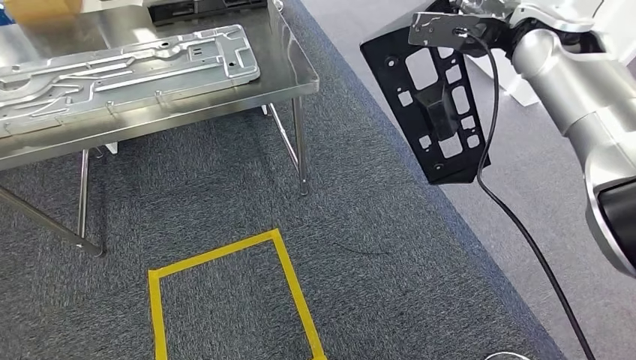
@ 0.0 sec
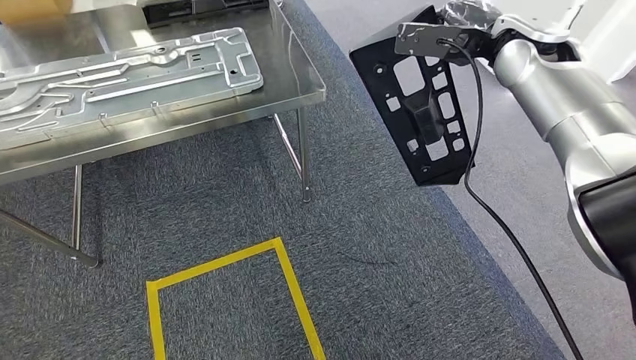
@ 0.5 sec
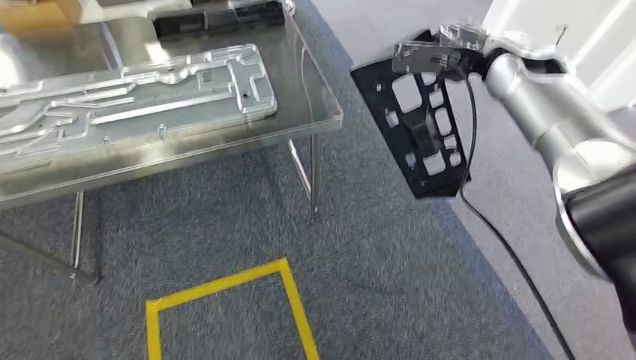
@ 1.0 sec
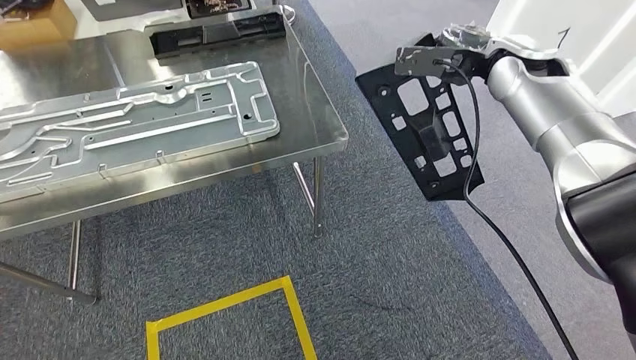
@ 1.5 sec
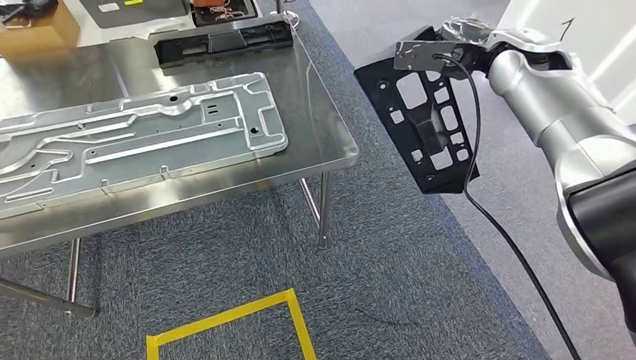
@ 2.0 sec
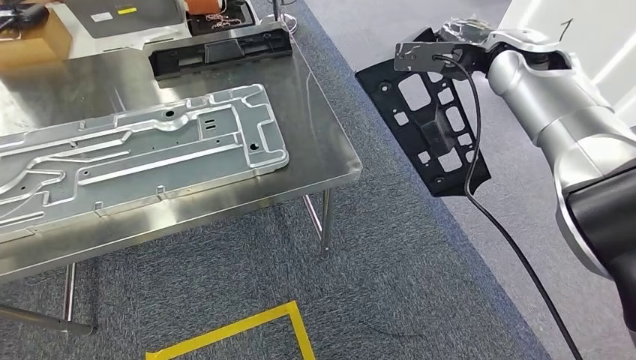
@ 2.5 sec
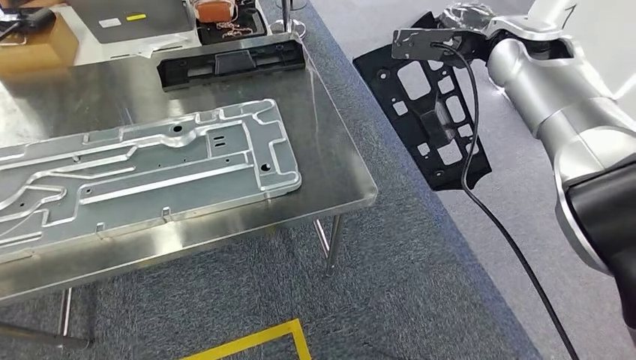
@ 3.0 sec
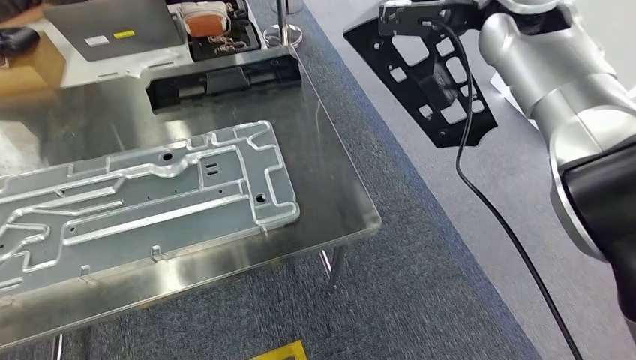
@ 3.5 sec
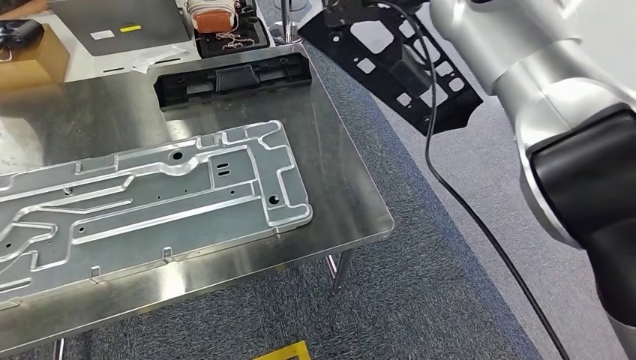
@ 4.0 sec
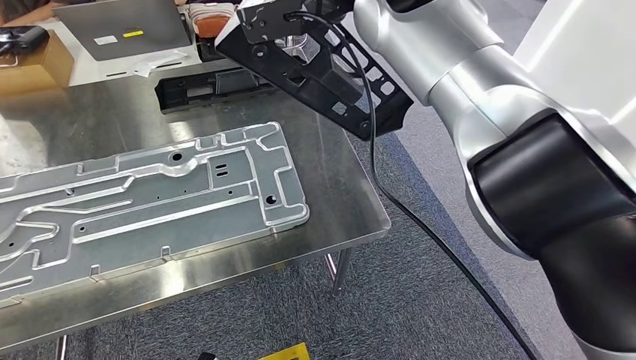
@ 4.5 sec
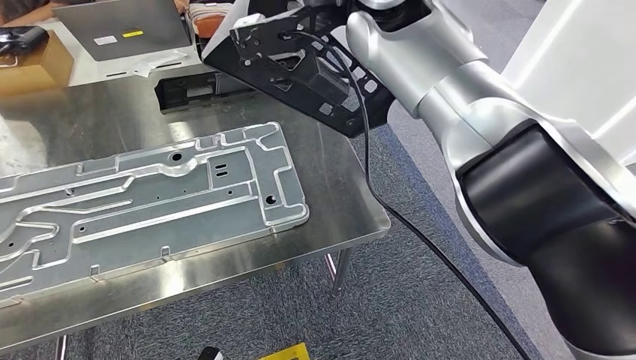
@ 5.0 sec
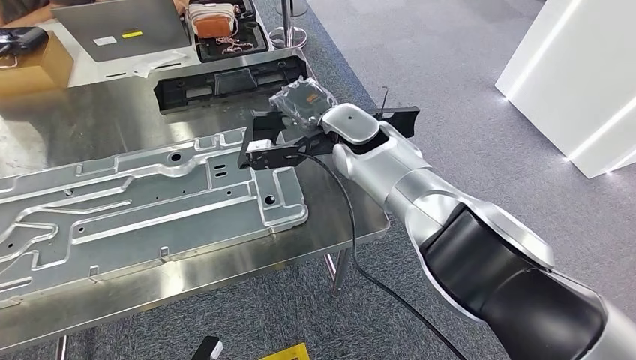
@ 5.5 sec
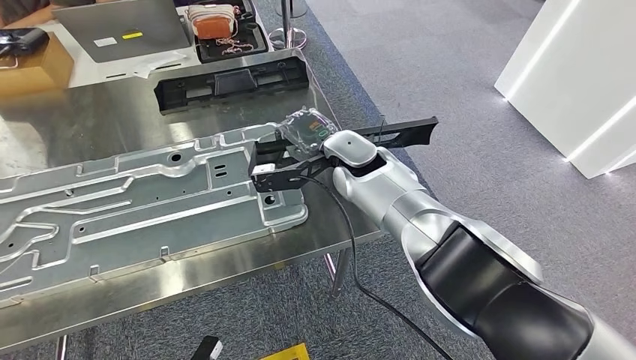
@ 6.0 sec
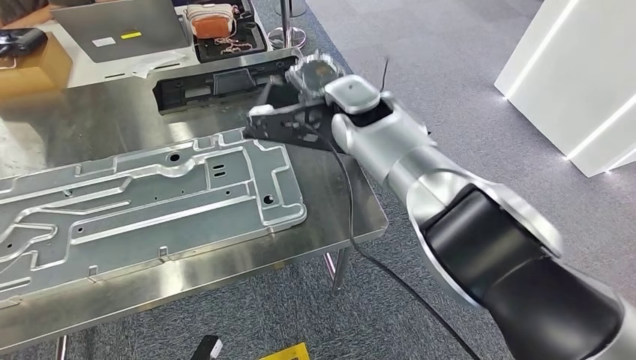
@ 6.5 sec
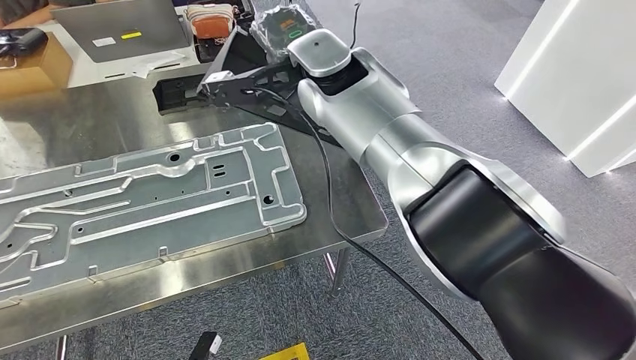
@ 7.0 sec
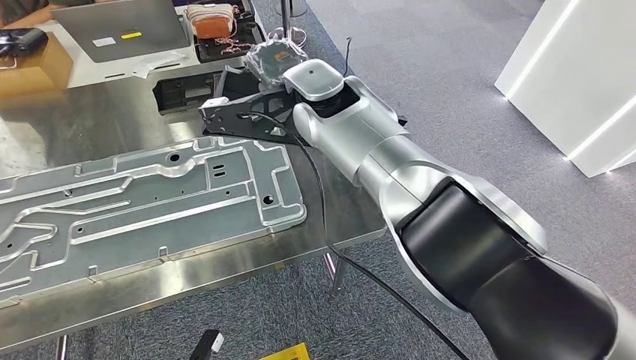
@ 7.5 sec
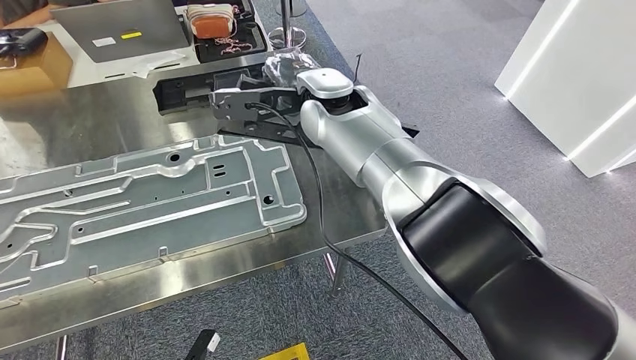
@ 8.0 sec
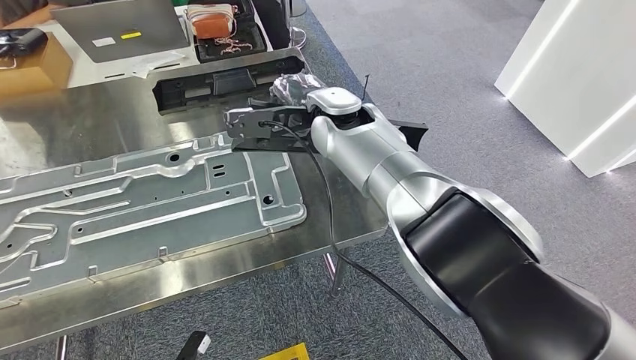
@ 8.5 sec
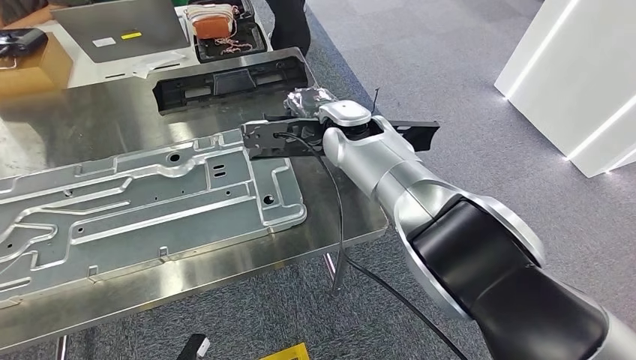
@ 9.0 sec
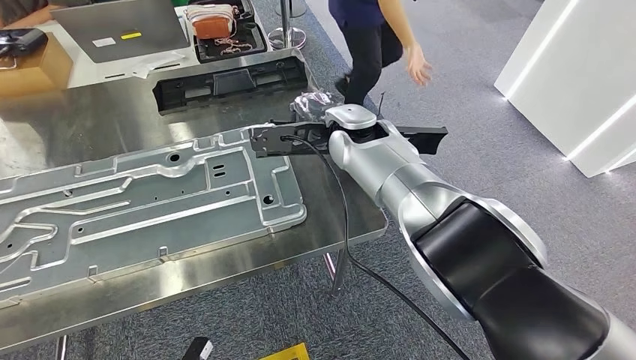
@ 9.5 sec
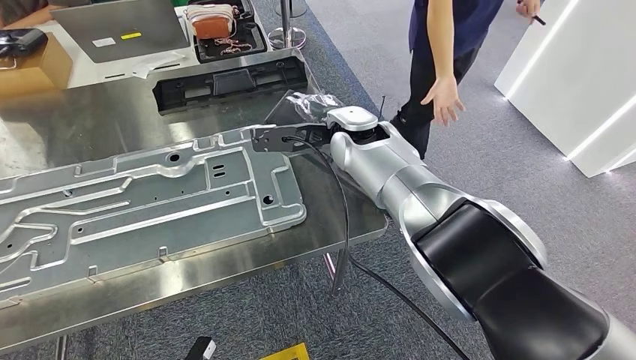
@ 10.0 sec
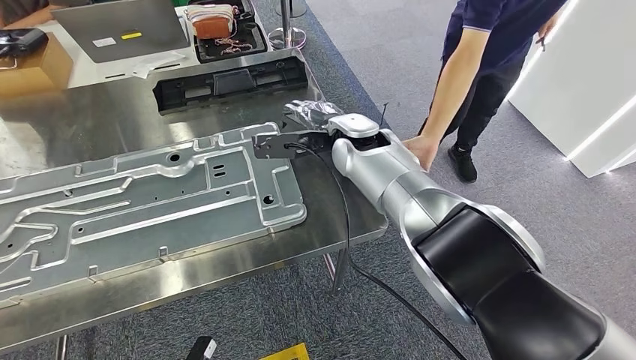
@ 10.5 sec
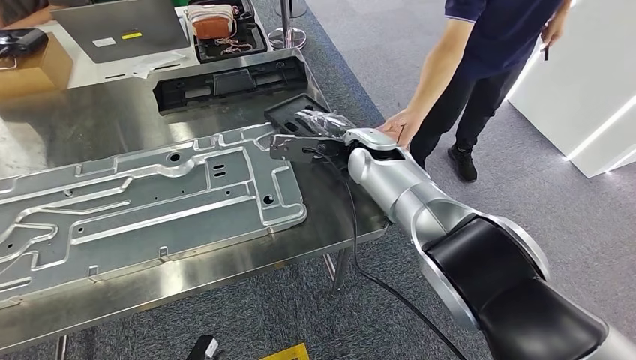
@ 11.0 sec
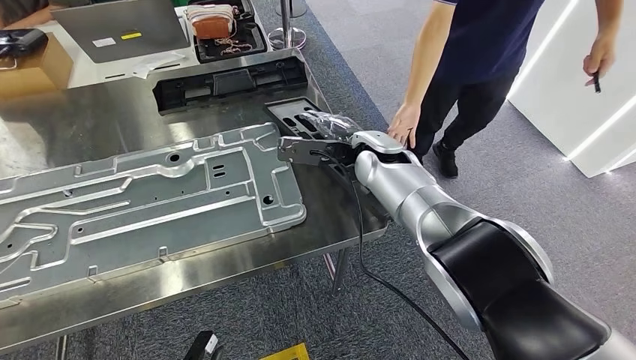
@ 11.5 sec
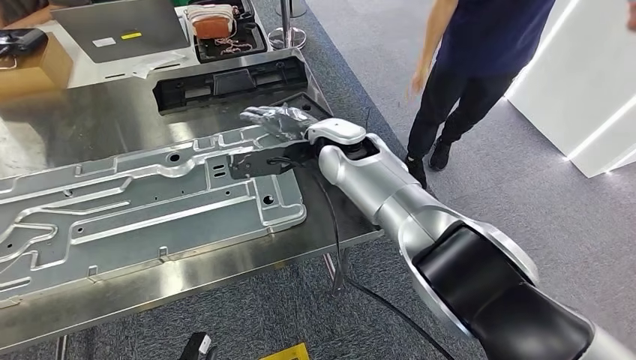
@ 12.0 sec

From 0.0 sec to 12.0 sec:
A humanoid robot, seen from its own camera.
Step, from 0.0 sec to 2.0 sec: Move the large material to the front of the workbench.
From 6.0 sec to 8.0 sec: The right hand shifts some 10 cm upward.
From 8.0 sec to 10.0 sec: The right hand shifts about 5 cm downward.

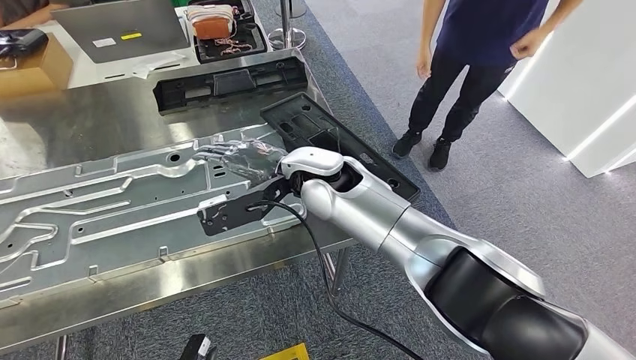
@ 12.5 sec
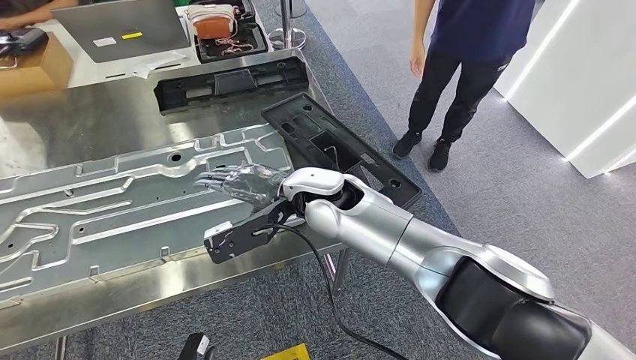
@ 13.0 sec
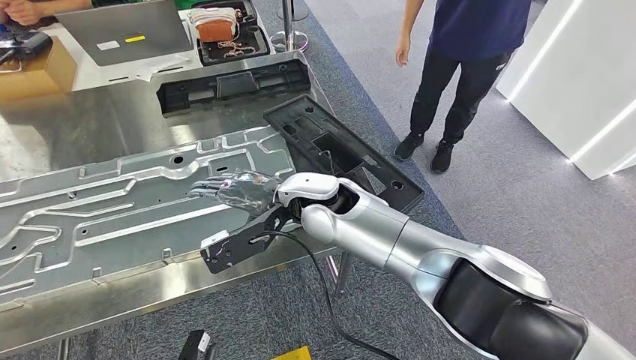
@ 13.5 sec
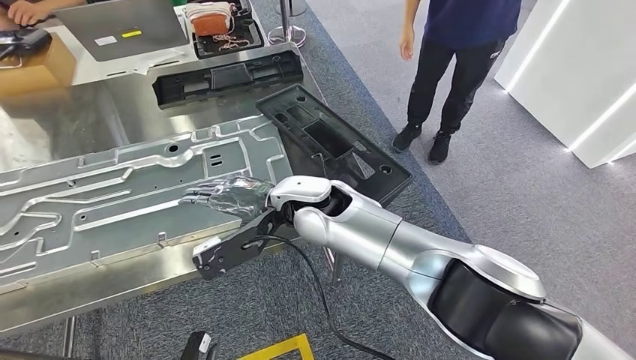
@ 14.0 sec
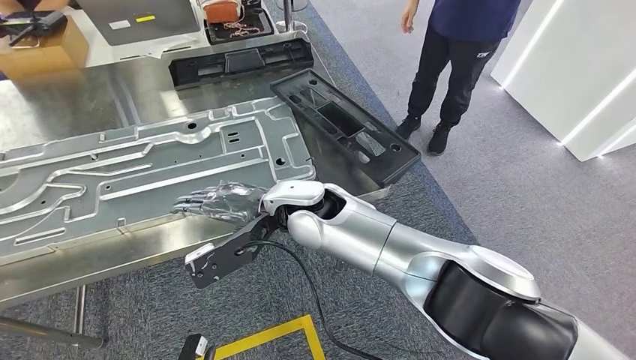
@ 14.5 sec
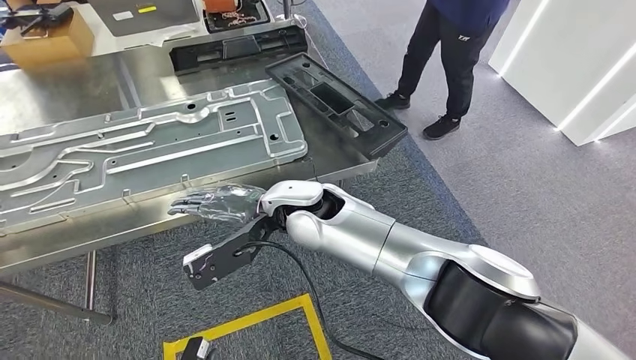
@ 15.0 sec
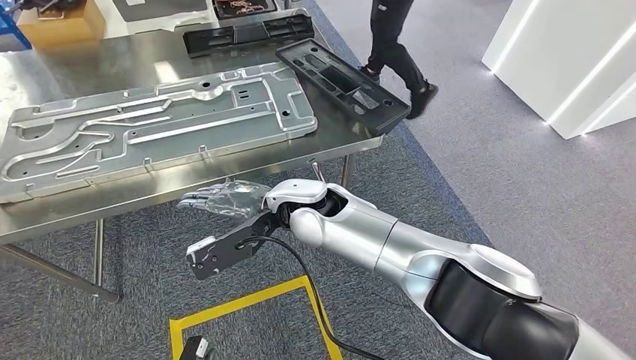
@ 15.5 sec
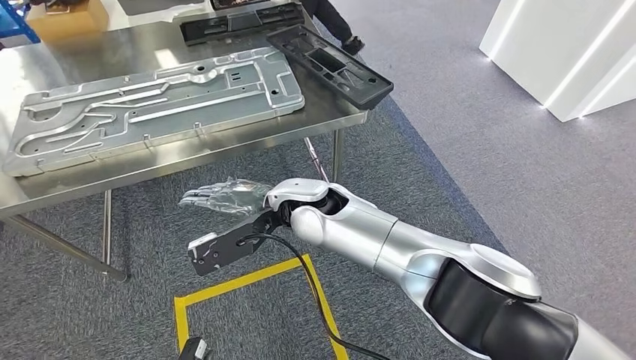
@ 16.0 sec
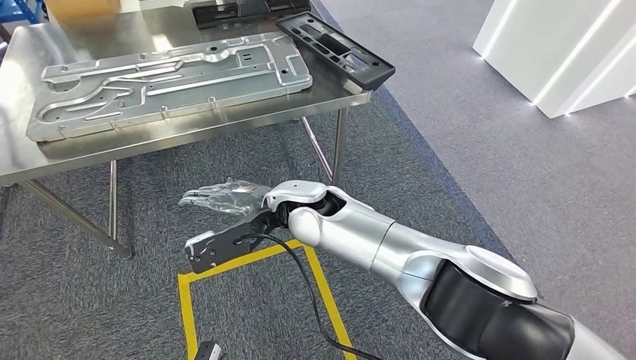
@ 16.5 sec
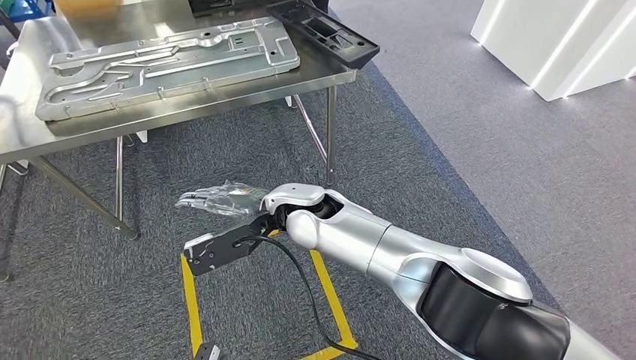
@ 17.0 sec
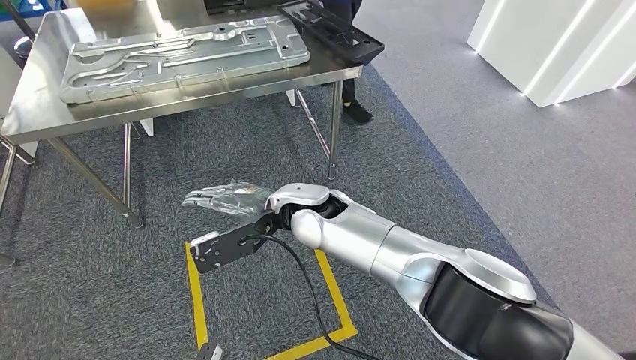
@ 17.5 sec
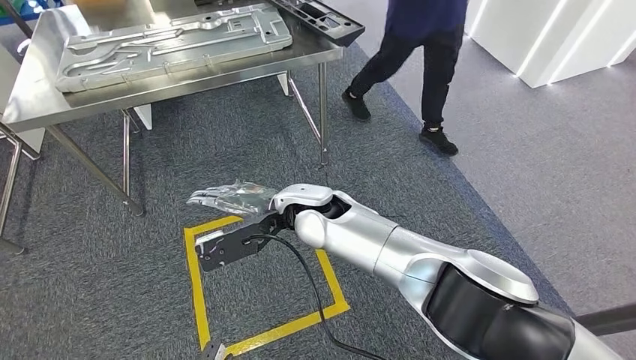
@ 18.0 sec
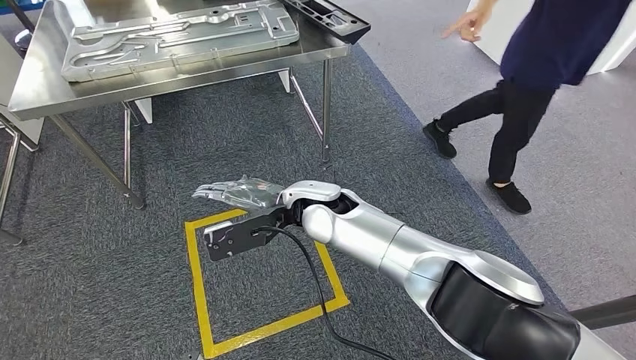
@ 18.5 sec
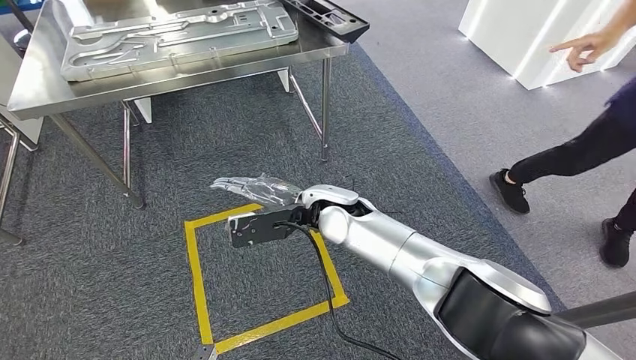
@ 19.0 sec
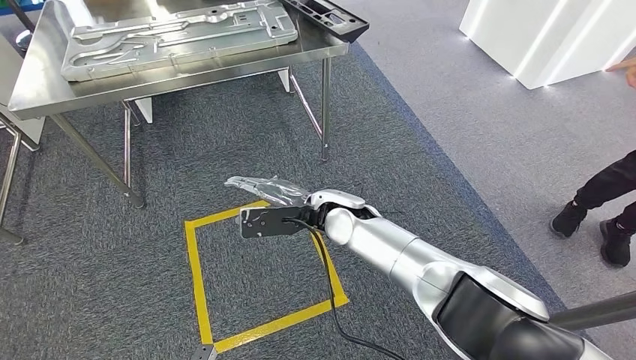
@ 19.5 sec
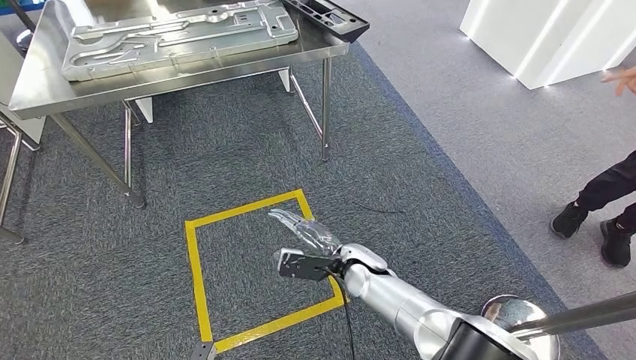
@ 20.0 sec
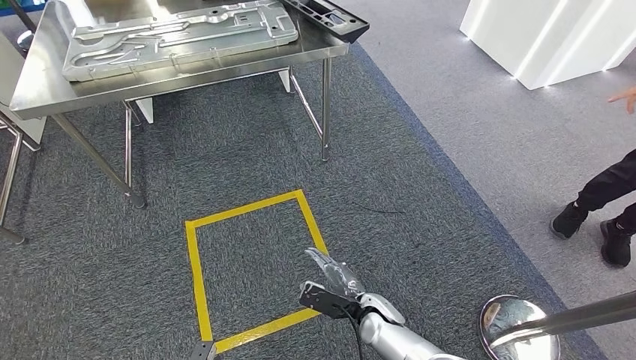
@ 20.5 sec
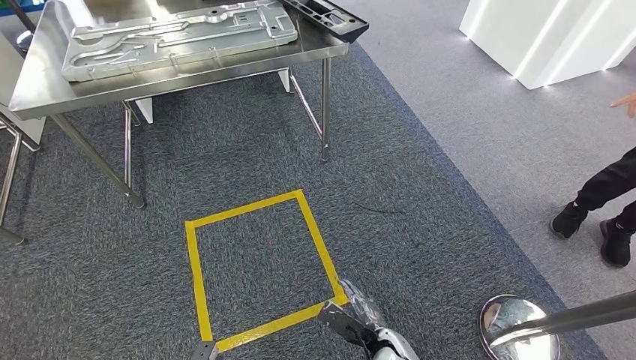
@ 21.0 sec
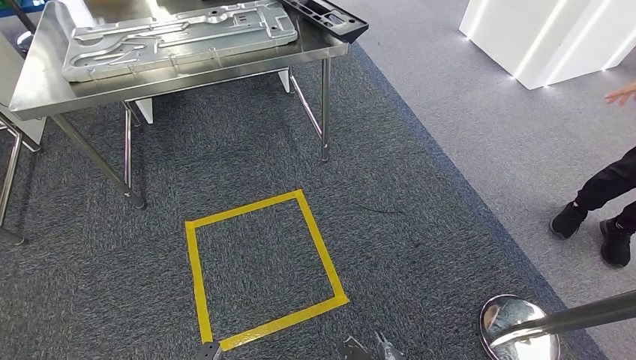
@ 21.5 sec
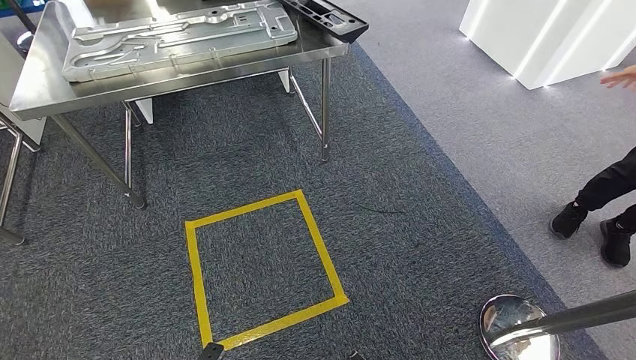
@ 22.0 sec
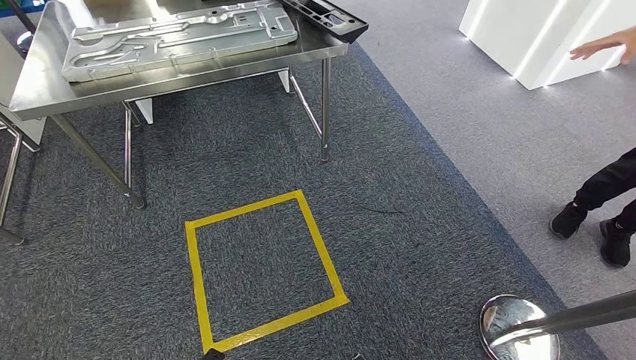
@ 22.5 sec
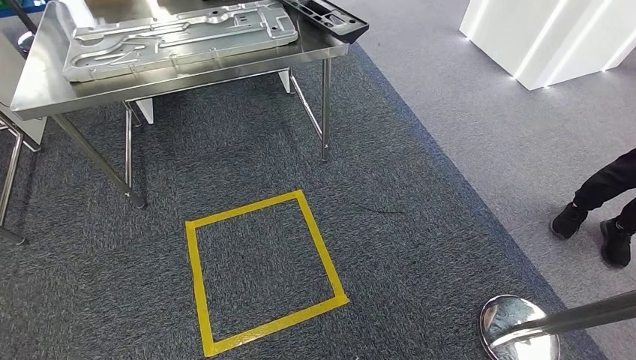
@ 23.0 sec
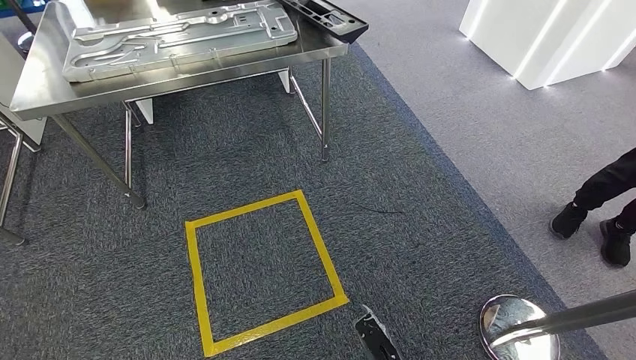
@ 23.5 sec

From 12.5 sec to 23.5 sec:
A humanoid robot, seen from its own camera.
Step, from 12.5 sec to 14.5 sec: Insert the large material into the corresponding hole on the workbench.
Step, from 17.5 sec to 22.0 sec: Move to the initial position of the shelf.
From 20.0 sec to 21.5 sec: The right hand heads backward and downward, covering approximately 25 cm.
From 21.5 sec to 23.5 sec: The left hand moves to the left, roughly 5 cm.
